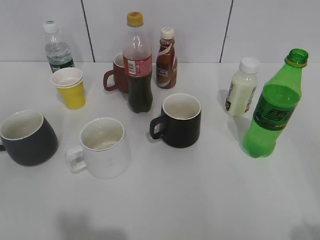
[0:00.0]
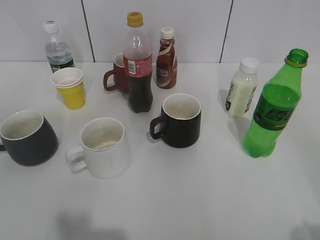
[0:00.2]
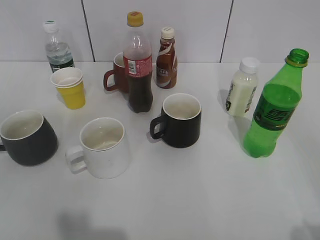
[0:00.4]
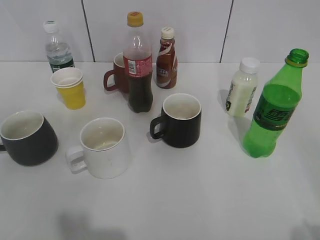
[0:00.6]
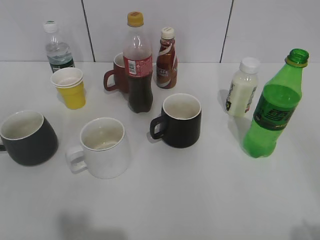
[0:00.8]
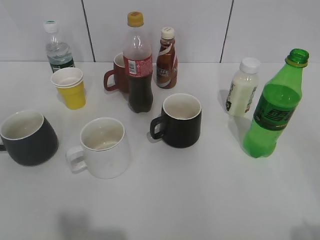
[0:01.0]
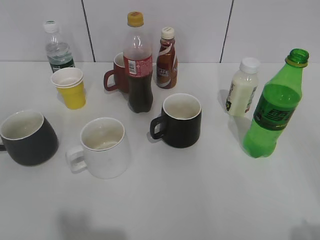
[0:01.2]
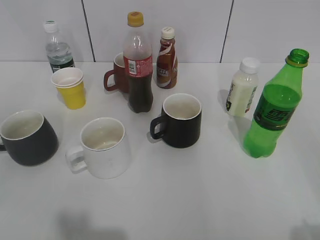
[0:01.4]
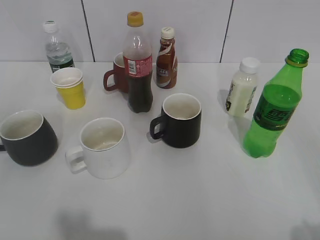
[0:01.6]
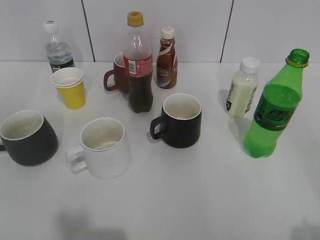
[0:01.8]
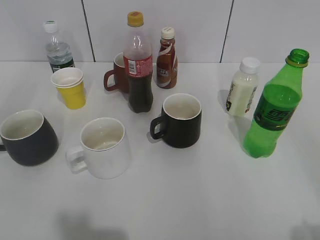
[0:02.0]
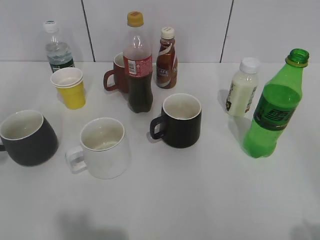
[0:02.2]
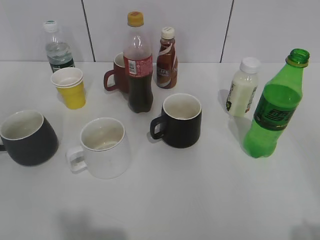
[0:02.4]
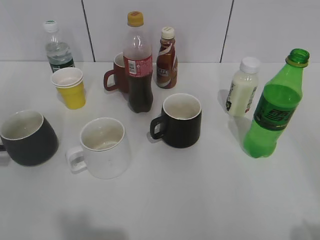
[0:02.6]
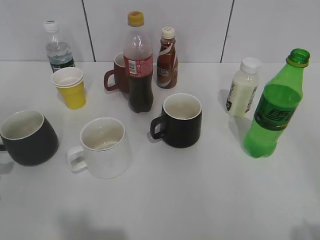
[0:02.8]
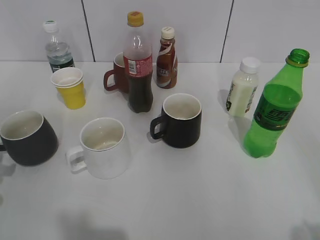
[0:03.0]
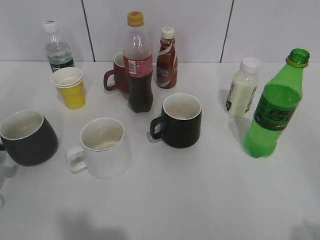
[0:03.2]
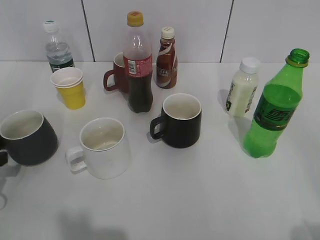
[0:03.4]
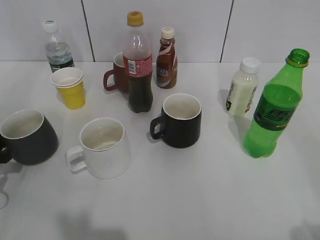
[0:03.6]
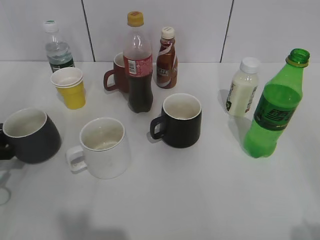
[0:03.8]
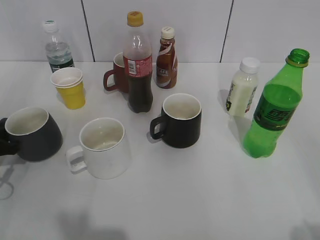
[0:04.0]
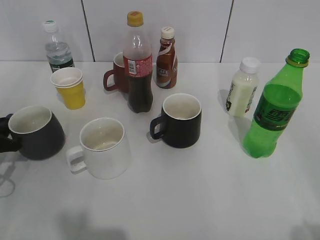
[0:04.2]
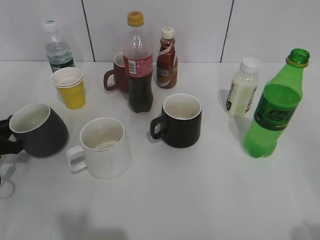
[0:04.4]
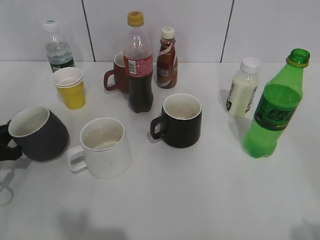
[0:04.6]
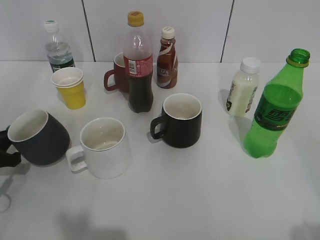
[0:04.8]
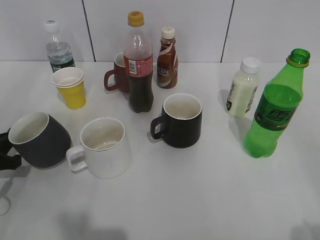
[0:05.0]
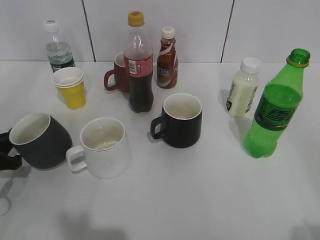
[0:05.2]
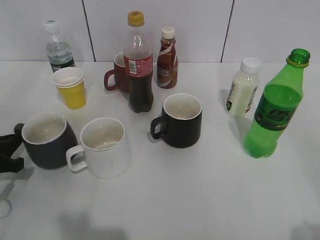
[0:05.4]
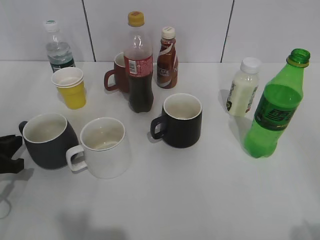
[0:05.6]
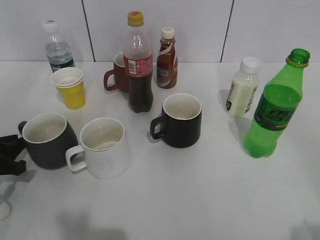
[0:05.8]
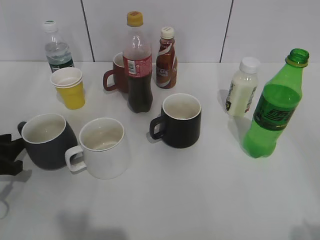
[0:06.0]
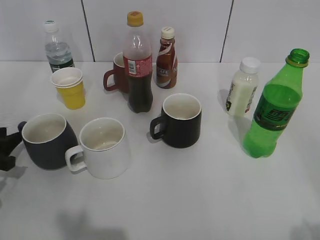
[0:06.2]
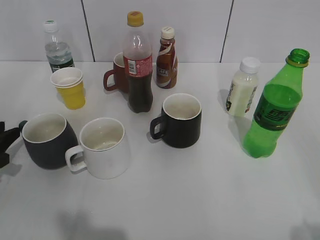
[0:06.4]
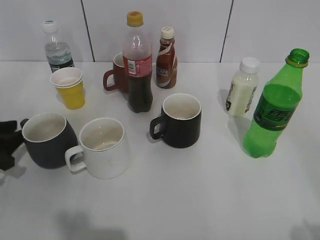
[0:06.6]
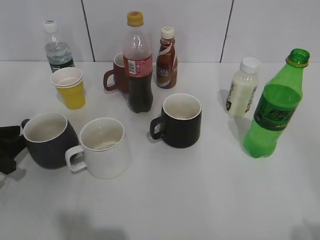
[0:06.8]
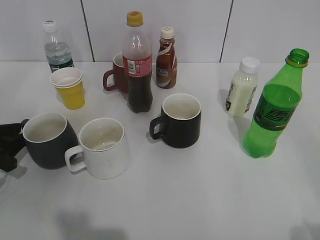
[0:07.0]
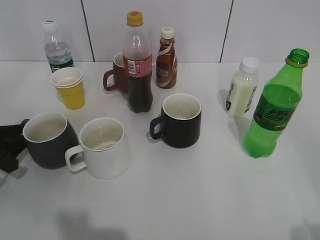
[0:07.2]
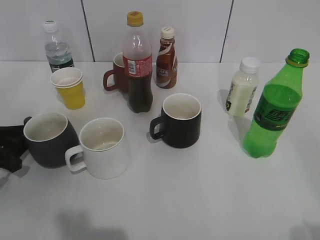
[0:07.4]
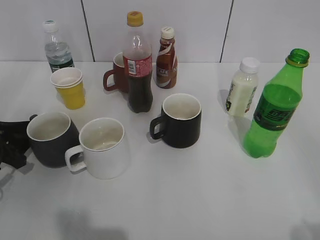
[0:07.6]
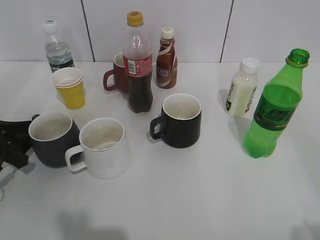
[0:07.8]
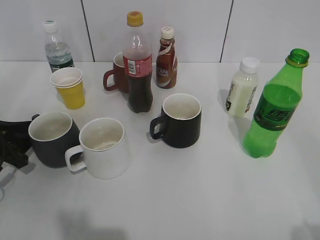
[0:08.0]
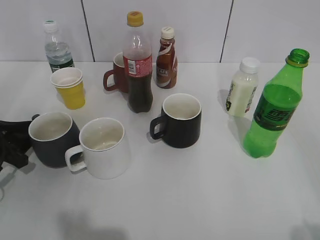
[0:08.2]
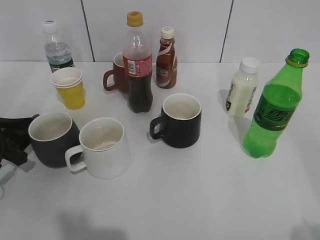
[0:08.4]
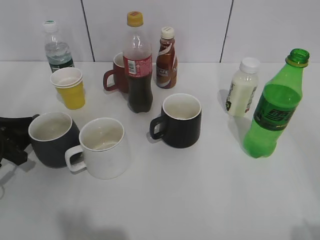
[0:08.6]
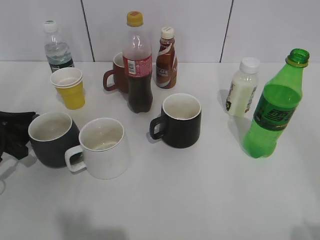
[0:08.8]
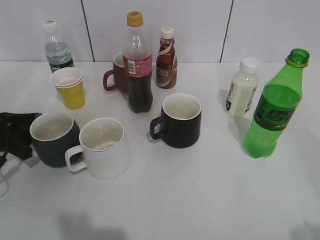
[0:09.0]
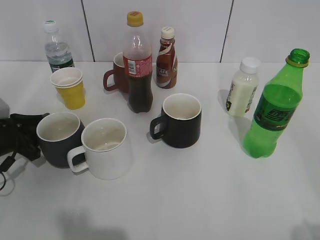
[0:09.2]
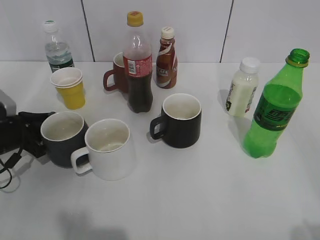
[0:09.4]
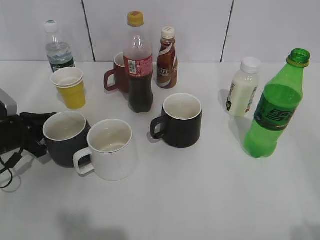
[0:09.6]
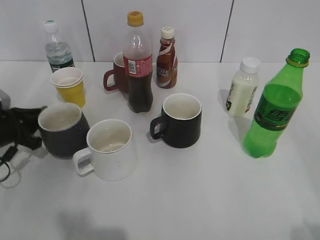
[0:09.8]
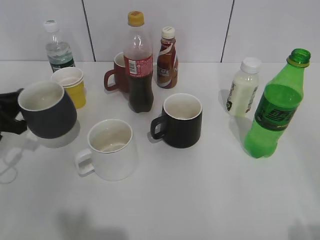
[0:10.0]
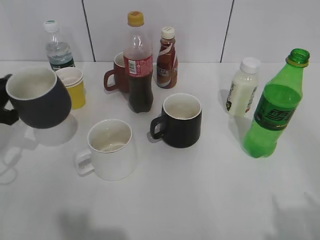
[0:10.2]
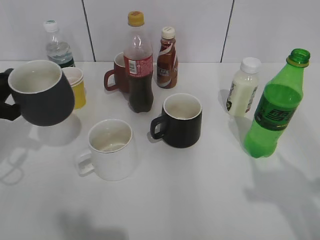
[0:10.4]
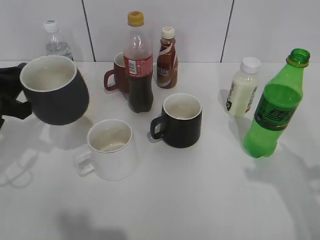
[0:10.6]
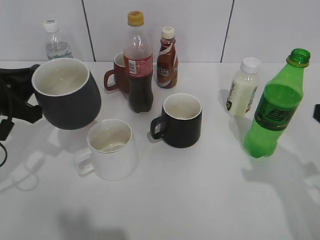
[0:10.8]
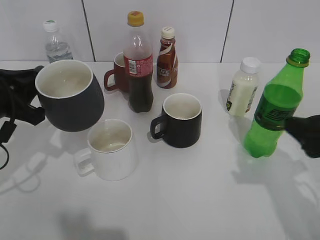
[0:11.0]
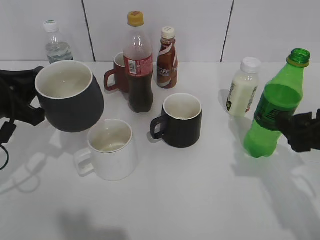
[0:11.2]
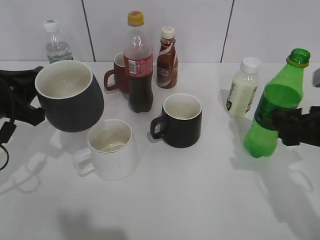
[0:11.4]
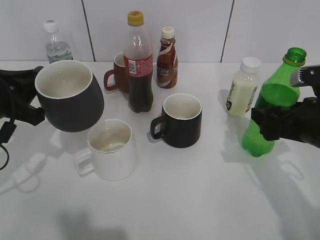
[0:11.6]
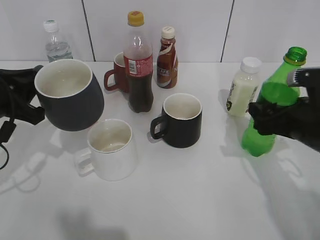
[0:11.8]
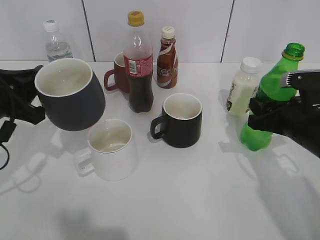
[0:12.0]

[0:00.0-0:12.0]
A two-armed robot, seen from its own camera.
Step, 0:03.2 to 0:09.4: Grasp the grey cup with left gripper.
Step, 0:09.6 to 0:10.0: Lift the grey cup with left gripper.
Step, 0:10.4 to 0:11.8: Grasp the bottle with sprite with right gripper.
0:03.0 to 0:04.4: The left gripper is displaced forward and downward by approximately 10 cm, and closes its fingers.
0:04.4 to 0:06.0: The left gripper opens up.
0:06.0 to 0:07.6: The grippers move only a little.
0:07.6 to 0:09.0: There are only small adjustments of the grippers.
0:09.0 to 0:10.4: The right gripper goes about 10 cm forward, while the left gripper shifts about 10 cm upward, and closes up.
0:10.4 to 0:12.0: The left gripper is displaced to the right by roughly 5 cm; the right gripper heads forward and downward, covering some 25 cm, and opens, then closes once more.

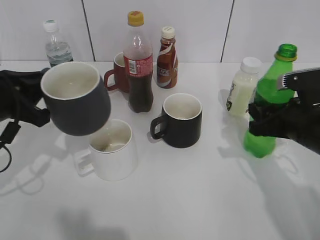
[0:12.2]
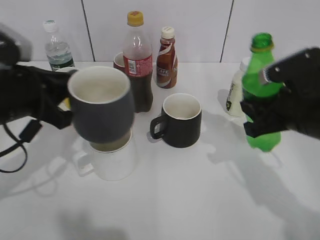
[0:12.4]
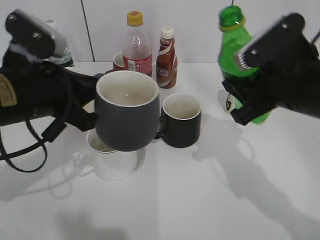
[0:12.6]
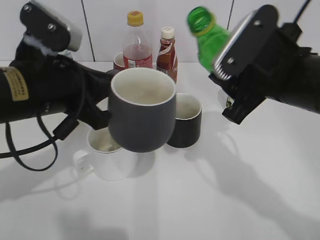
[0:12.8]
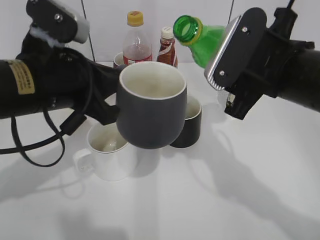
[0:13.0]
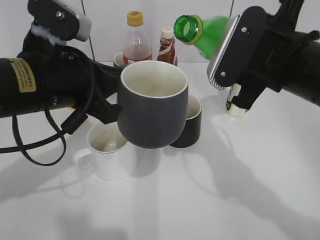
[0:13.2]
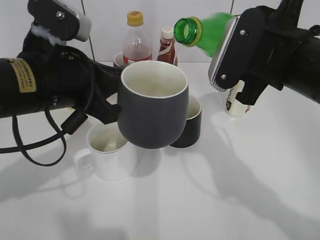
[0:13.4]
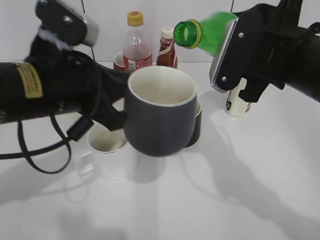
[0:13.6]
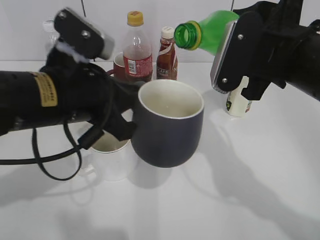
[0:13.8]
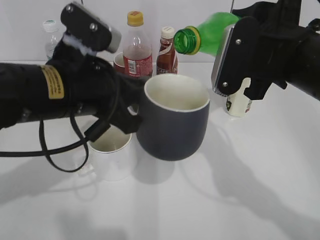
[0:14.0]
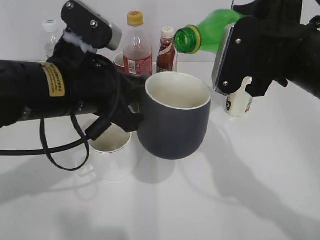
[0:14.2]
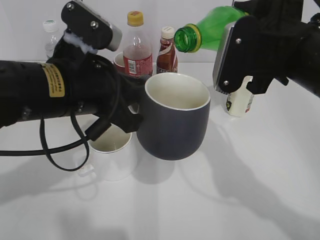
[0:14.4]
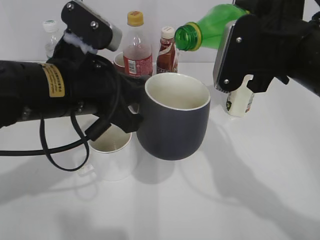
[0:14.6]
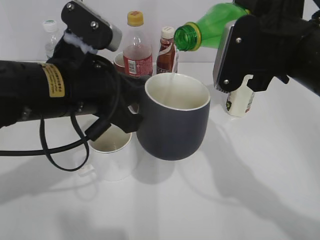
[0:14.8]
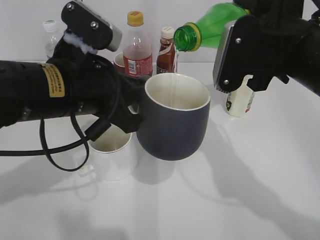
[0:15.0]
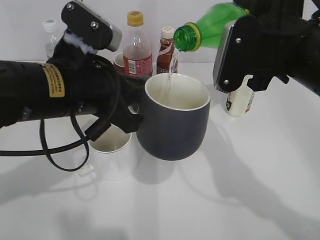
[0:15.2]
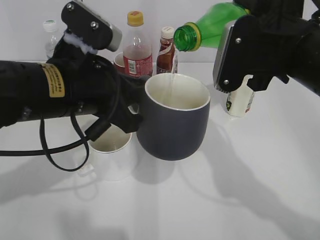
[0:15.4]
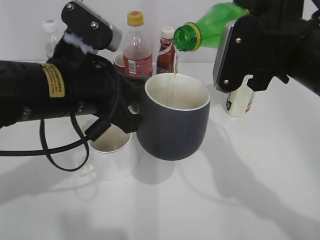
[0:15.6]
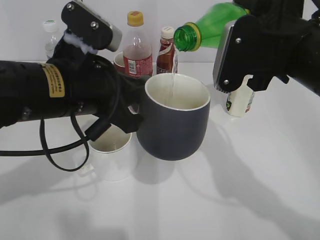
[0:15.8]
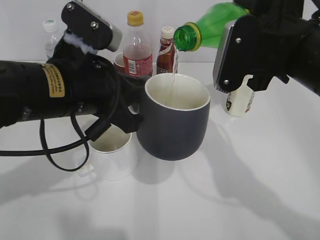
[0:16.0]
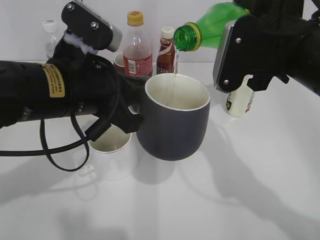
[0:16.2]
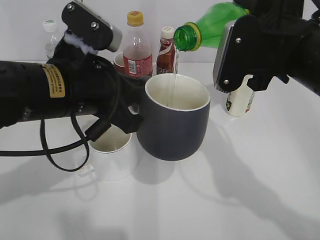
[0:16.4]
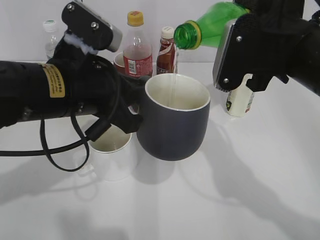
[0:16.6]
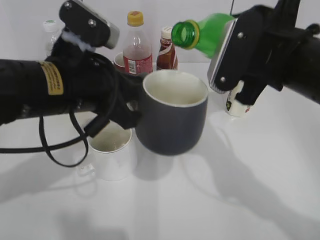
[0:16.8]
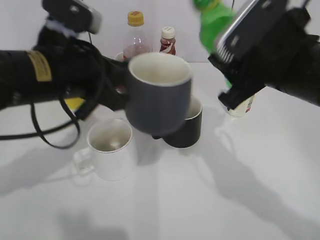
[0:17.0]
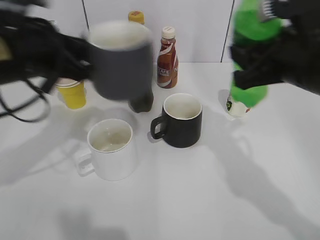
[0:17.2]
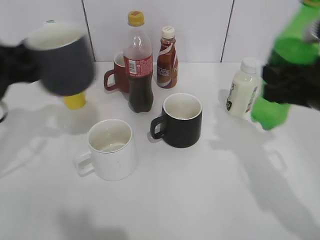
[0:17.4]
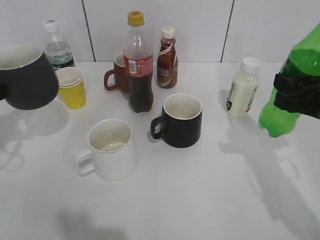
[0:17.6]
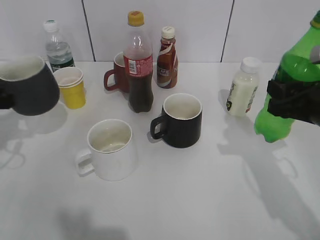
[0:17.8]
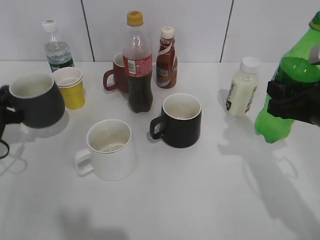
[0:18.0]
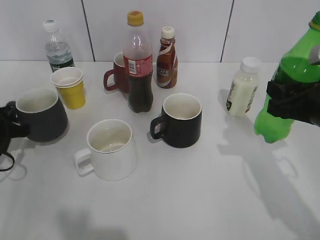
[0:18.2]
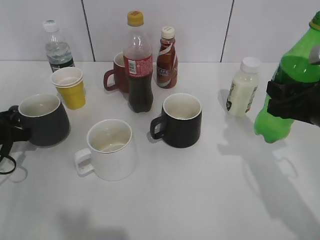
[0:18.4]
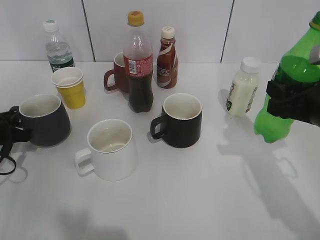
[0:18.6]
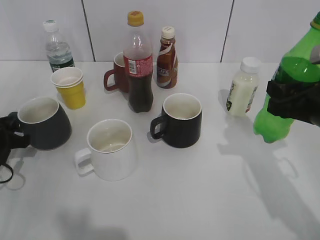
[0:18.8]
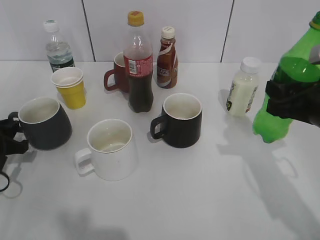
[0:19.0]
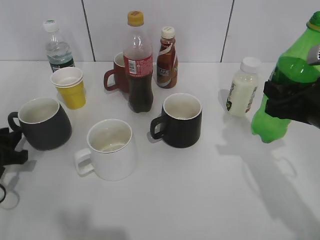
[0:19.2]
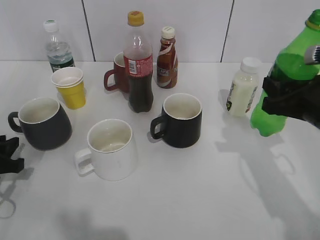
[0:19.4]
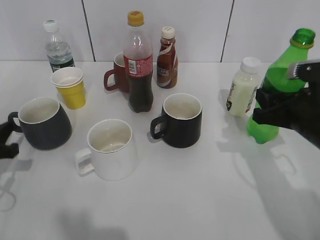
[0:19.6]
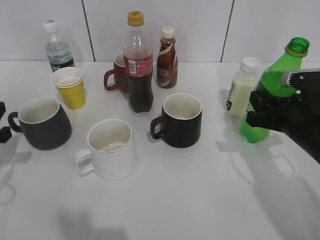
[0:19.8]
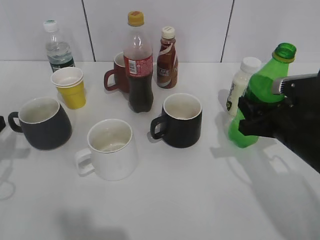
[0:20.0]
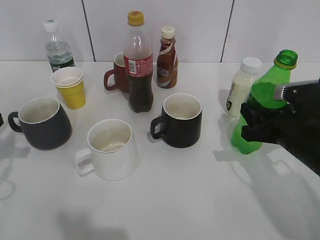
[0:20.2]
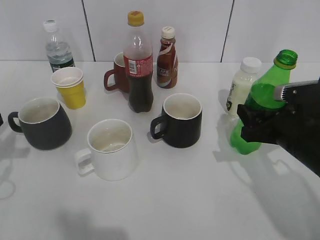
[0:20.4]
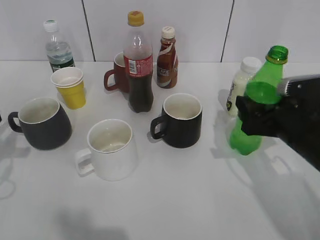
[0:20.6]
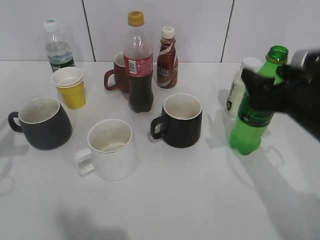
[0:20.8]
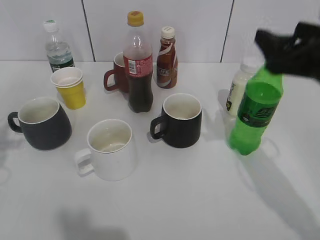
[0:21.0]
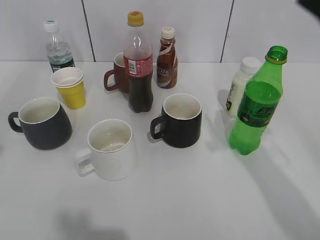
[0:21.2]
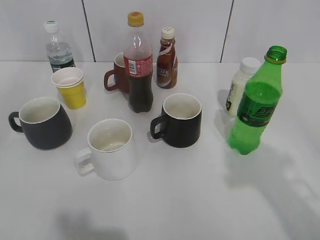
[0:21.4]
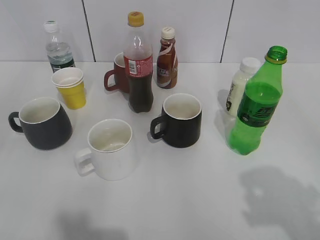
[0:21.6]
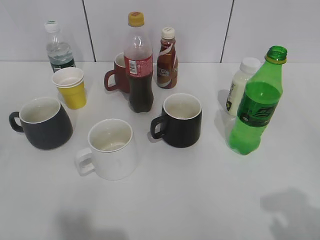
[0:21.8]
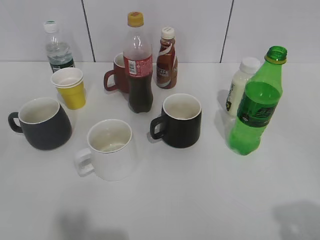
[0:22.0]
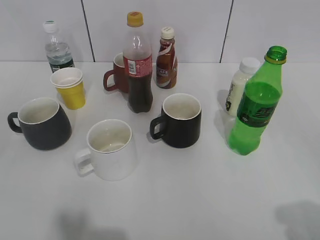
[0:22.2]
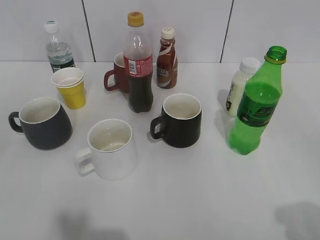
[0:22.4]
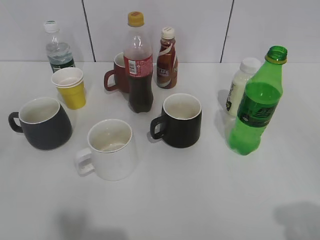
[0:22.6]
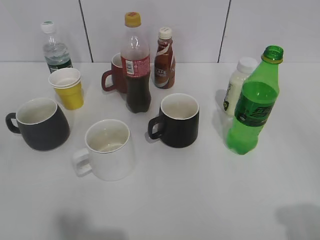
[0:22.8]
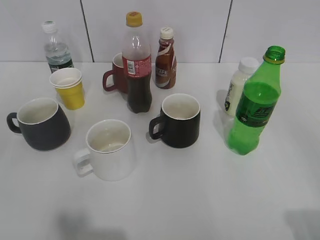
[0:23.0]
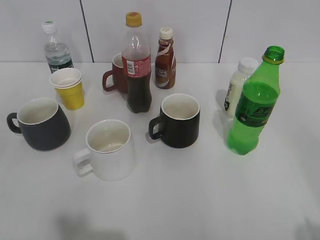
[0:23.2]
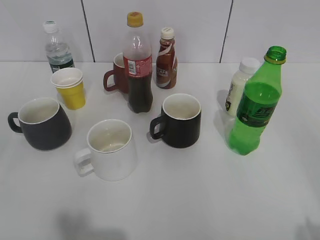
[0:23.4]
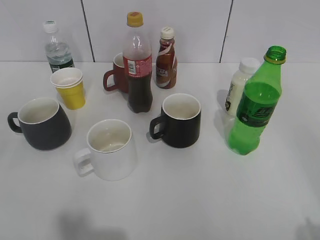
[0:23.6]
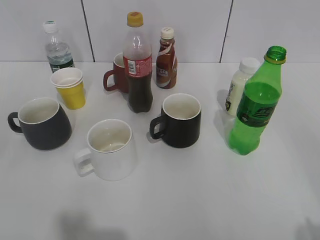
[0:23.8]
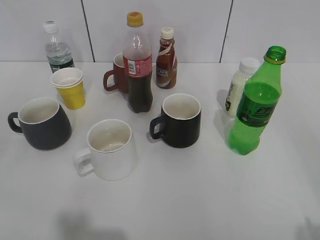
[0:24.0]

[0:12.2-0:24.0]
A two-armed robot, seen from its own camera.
Step, 0:12.2 to 0:16.8: Pour the sprite from bottle to cup with right gripper.
Step, 0:17.0 to 0:19.2: Place the grey cup on the table with left gripper.
Step, 0:19.4 to 0:20.8: Place the sprite bottle on the table with right gripper.
0:12.2 to 0:13.6: The left gripper moves to the right and upward, approximately 15 cm; the right gripper goes about 15 cm upward and to the left.
0:13.6 to 0:15.2: The grippers move only a little.
0:15.2 to 0:16.6: Both grippers stay about where they are.
0:16.6 to 0:18.2: The left gripper moves to the left and downward, about 25 cm, while the right gripper goes approximately 10 cm to the right and downward.
0:18.2 to 0:19.6: The left gripper moves backward, some 5 cm, and opens up.
0:19.6 to 0:21.0: The left gripper goes roughly 10 cm upward. The right gripper heads upward, covering approximately 5 cm, and opens its fingers.
0:21.0 to 0:22.6: The right gripper shifts approximately 20 cm backward, and closes its fingers.
0:22.6 to 0:24.0: The grippers stay close to where they were, moving slightly.
